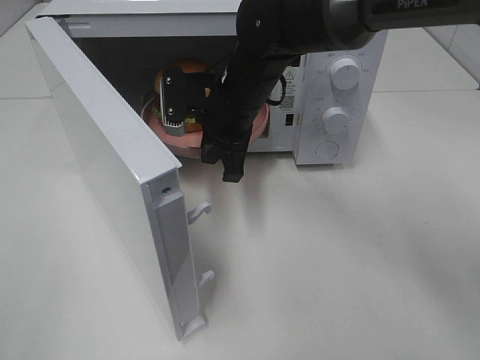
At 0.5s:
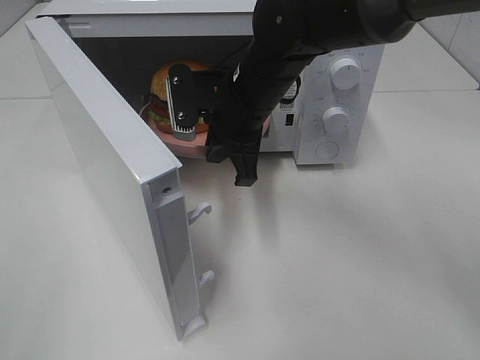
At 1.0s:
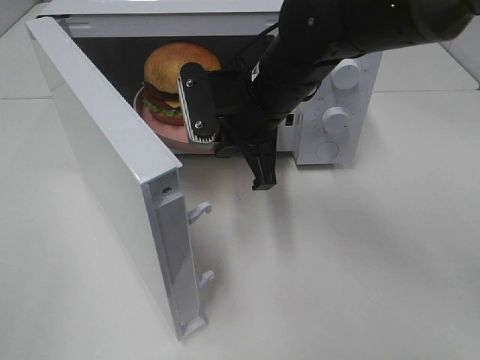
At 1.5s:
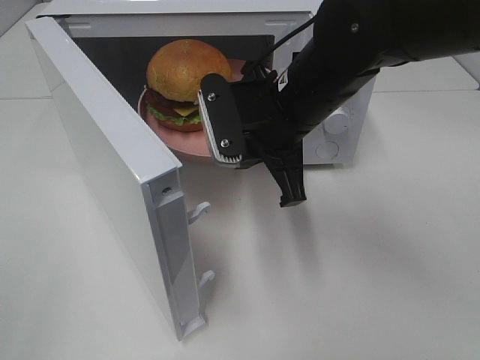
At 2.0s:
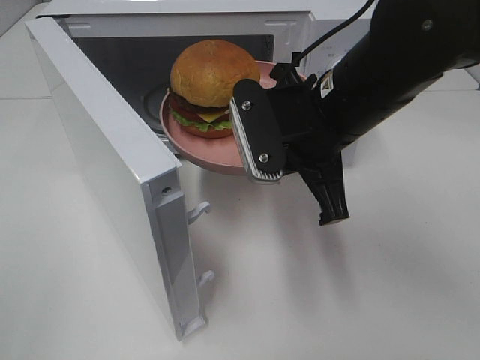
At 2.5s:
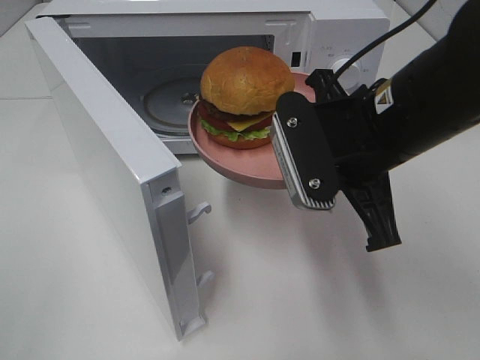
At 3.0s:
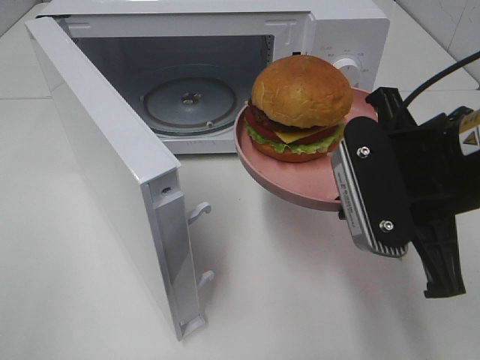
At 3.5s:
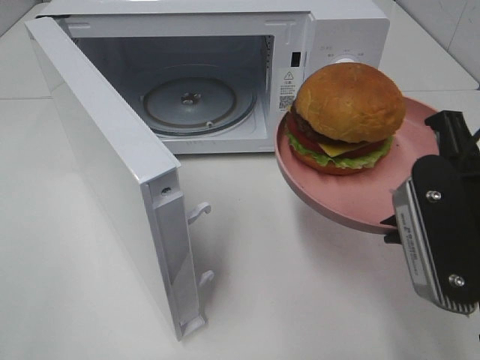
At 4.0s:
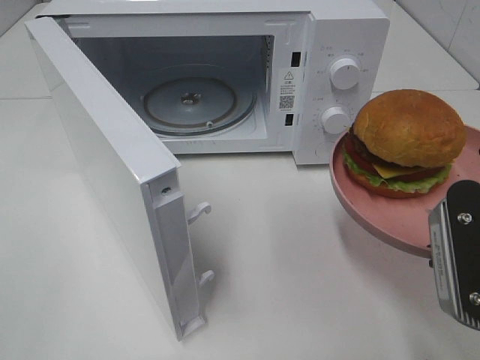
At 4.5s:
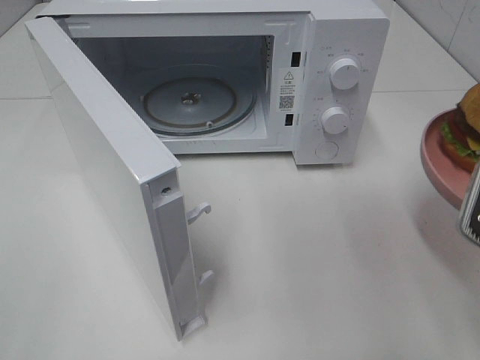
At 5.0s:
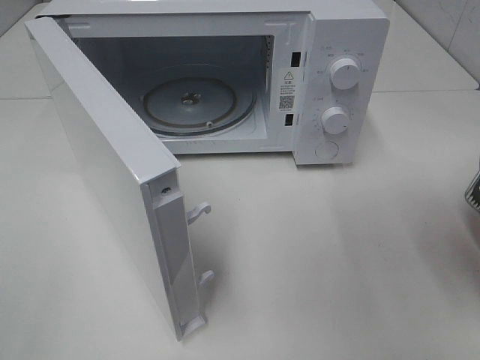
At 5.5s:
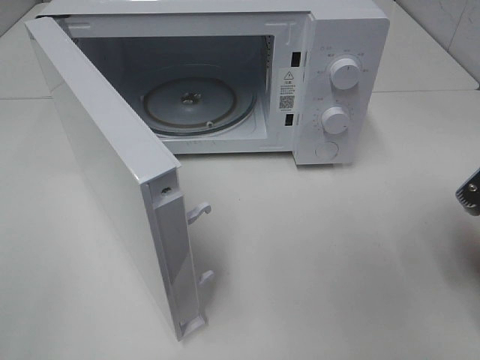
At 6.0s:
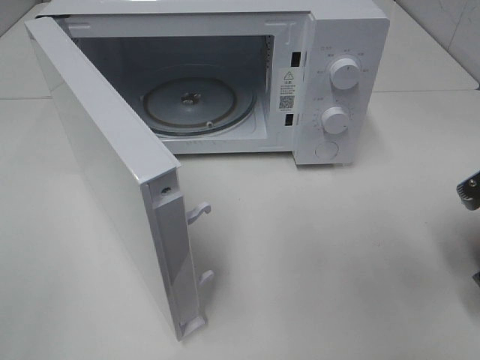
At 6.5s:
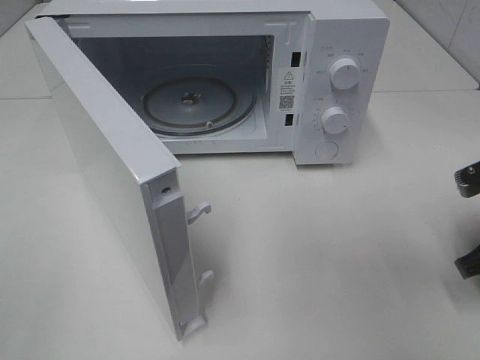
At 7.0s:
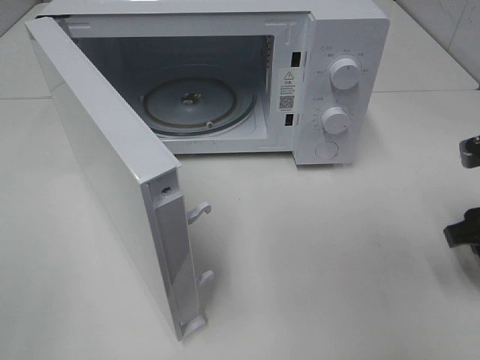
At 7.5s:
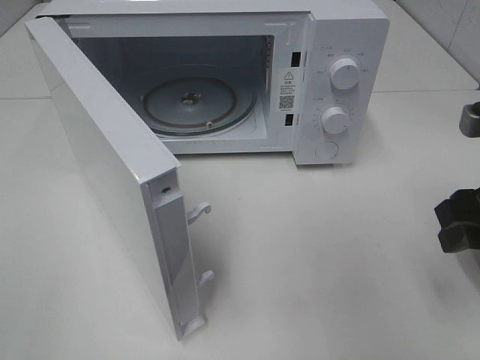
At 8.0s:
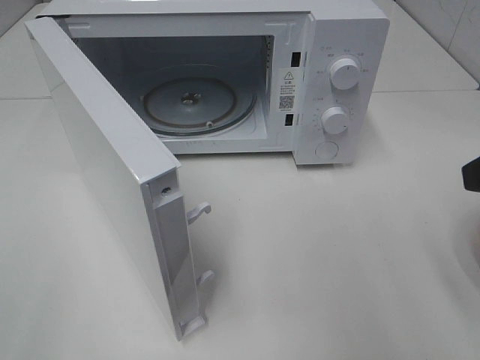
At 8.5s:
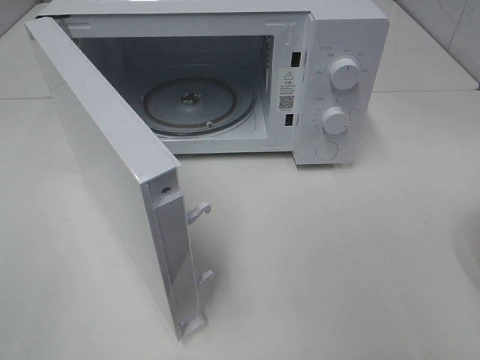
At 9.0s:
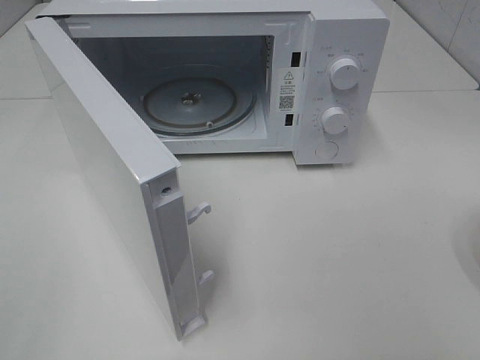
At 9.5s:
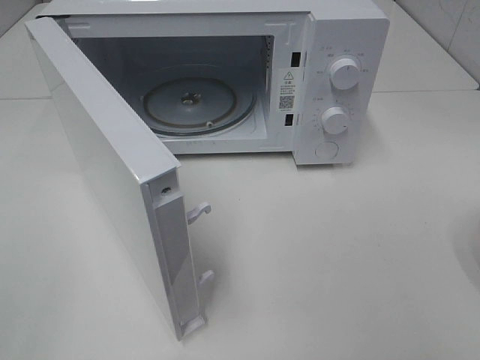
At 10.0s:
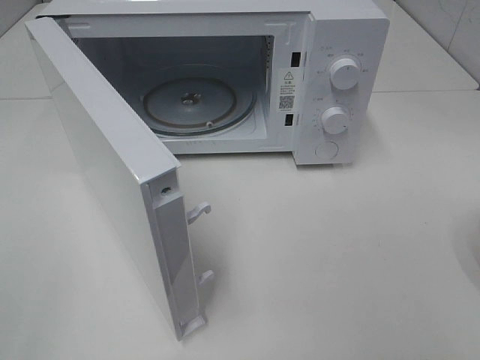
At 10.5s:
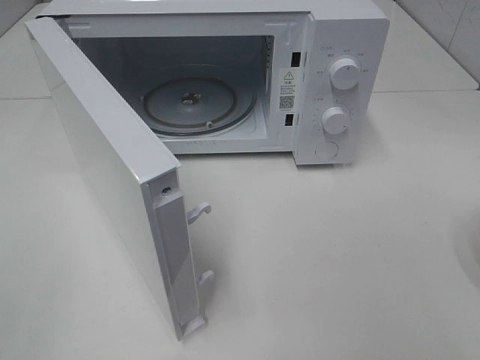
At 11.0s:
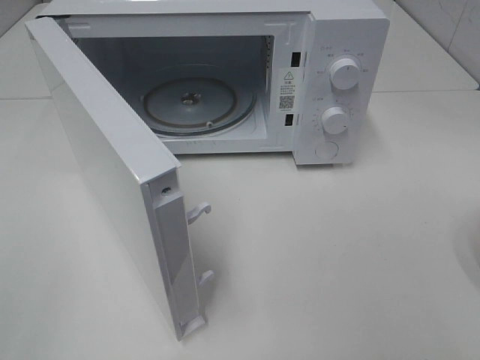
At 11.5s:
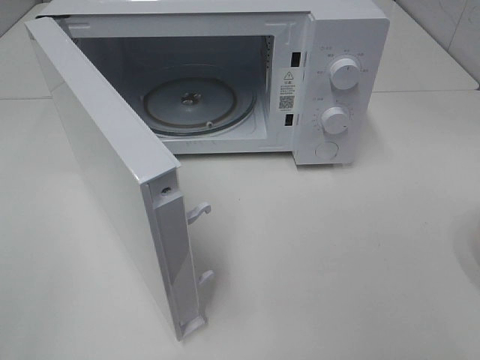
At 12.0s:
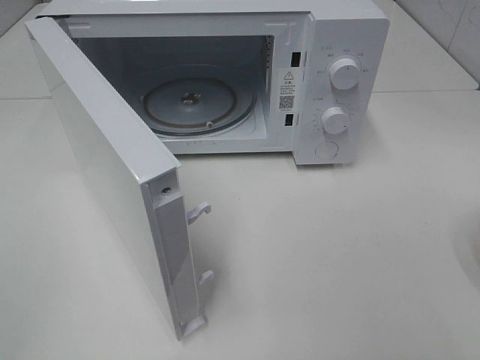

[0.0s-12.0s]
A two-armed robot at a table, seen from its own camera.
Task of the whole recording: Heat the burger.
Step, 0.0s to 6.0s: Right hand: place the plate on the table.
0.0s to 2.0s: The right gripper shifts some 15 cm backward, to the right and upward.
2.0s to 4.0s: The right gripper travels backward and to the right by roughly 20 cm.
4.0s to 6.0s: The right gripper is displaced to the right, downward and forward by roughly 15 cm.
6.0s to 8.0s: The right gripper is displaced upward by some 15 cm, and opens up.

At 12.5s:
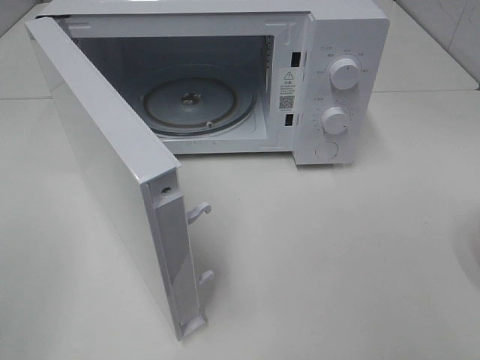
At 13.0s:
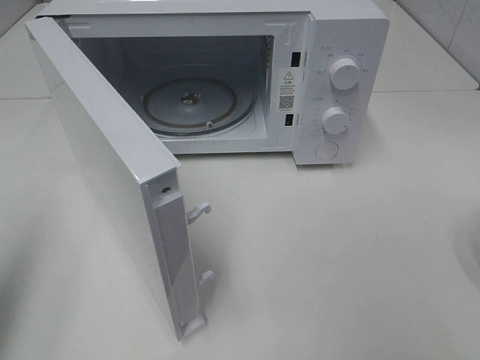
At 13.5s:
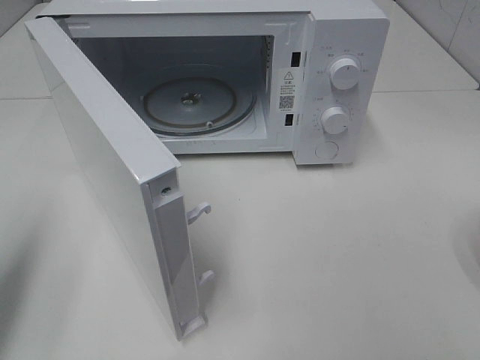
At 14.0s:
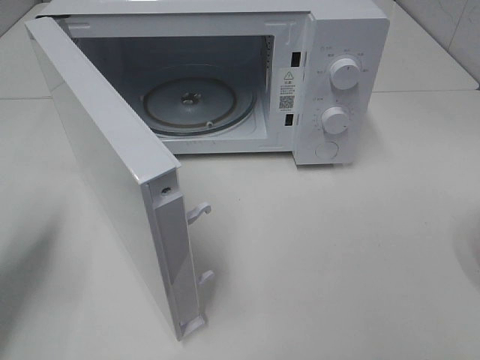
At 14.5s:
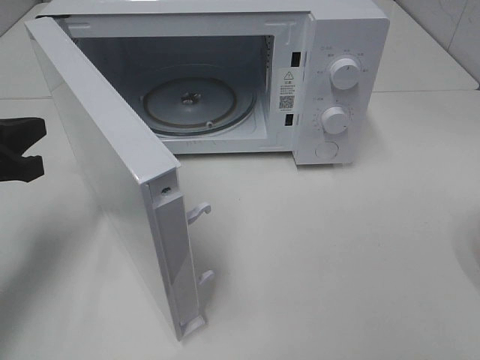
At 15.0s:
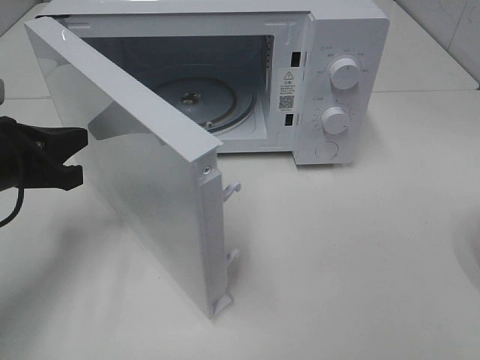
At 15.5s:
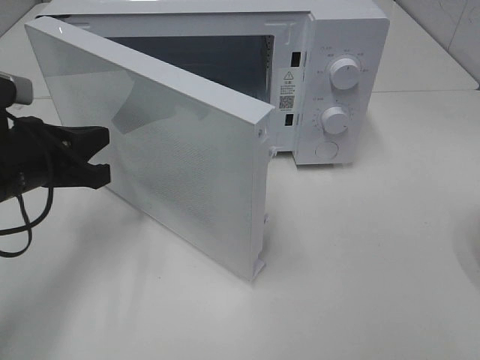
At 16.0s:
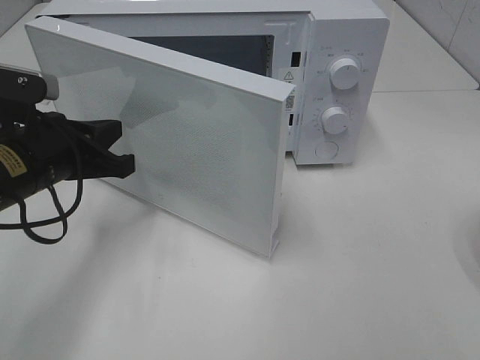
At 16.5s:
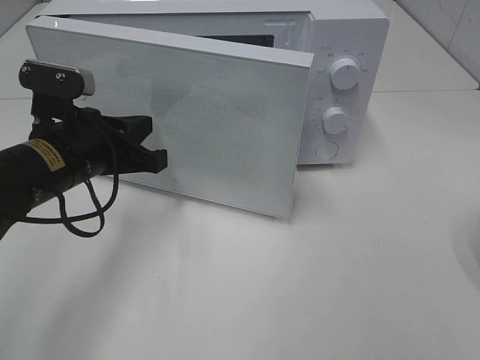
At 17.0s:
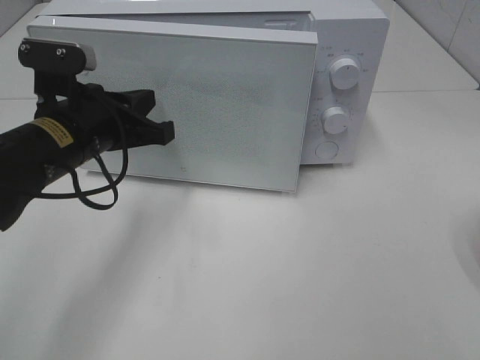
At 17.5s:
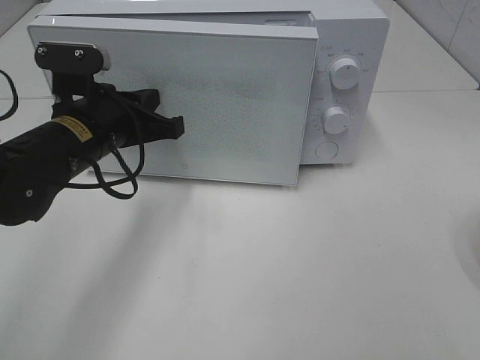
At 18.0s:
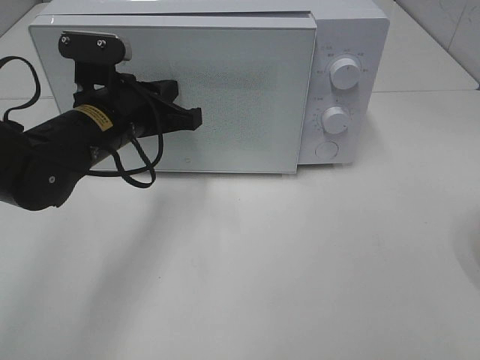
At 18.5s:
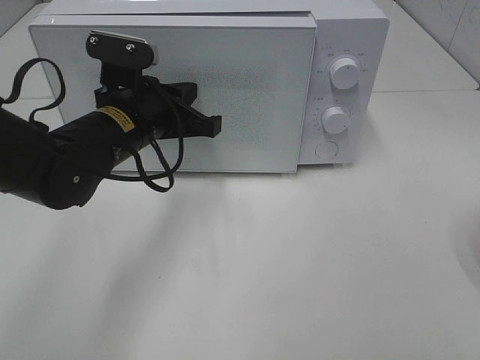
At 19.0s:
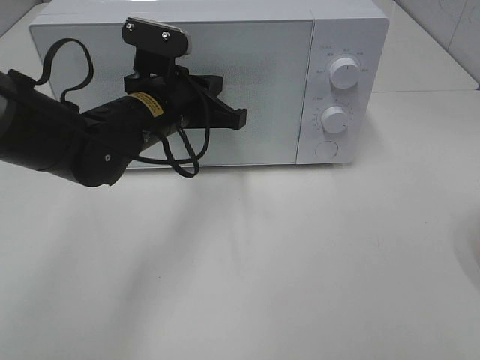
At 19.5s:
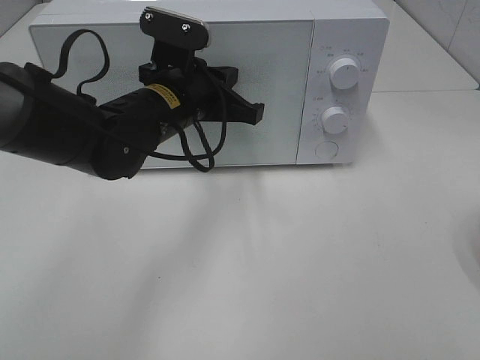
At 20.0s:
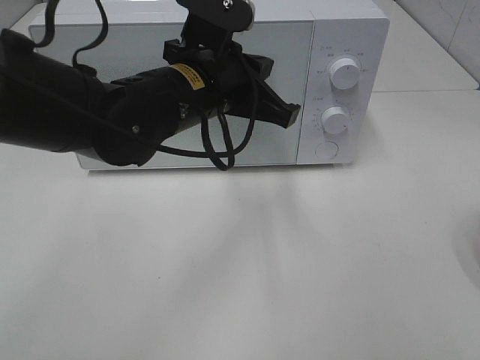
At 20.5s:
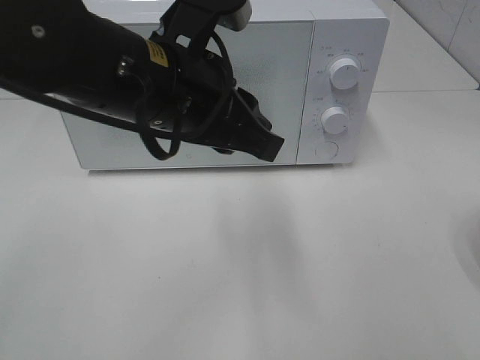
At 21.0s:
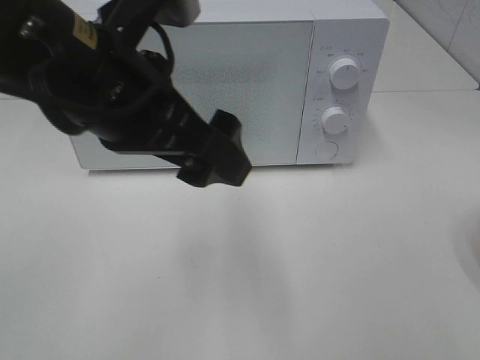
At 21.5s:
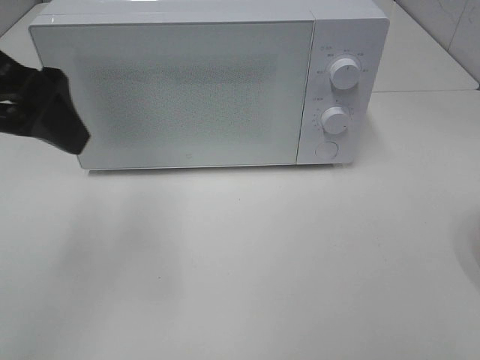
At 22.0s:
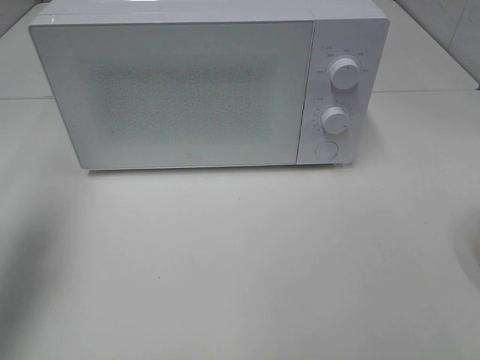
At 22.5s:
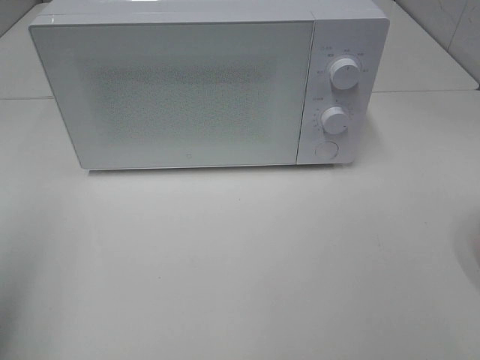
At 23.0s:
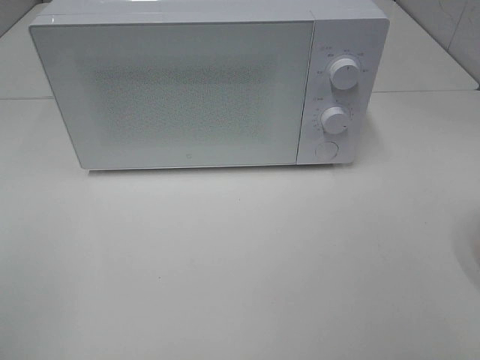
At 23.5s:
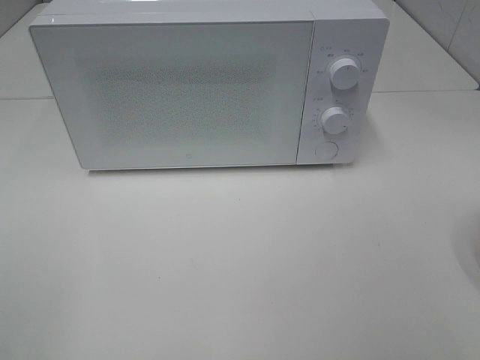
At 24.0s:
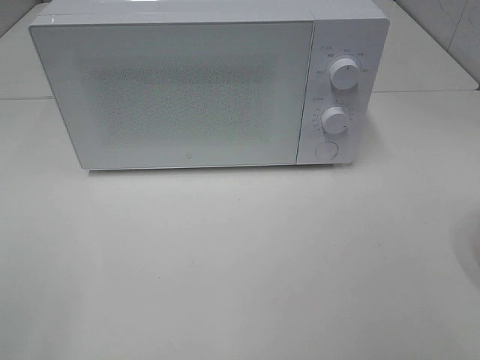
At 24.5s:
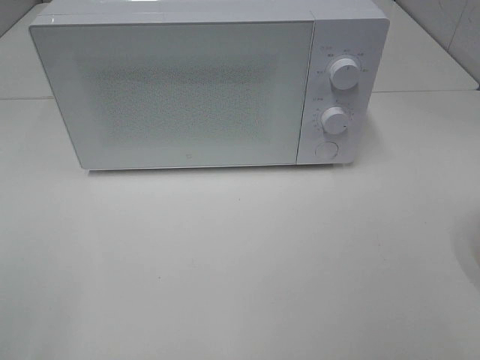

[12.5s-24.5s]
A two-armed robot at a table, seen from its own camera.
Task of the whole recording: Heat the burger.
Step, 12.5s to 19.0s: Left hand: close the microwave door.
12.5s to 14.5s: The left gripper goes roughly 25 cm forward and downward, and closes up.
14.5s to 16.5s: The left gripper travels to the right by about 10 cm.
16.5s to 18.5s: The left gripper goes some 5 cm to the right.
18.5s to 20.5s: The left gripper heads upward, backward and to the right, covering about 15 cm.
20.5s to 22.5s: The left gripper goes roughly 30 cm to the left and backward, and opens its fingers.
22.5s to 24.5s: The left gripper heads backward, covering roughly 15 cm.

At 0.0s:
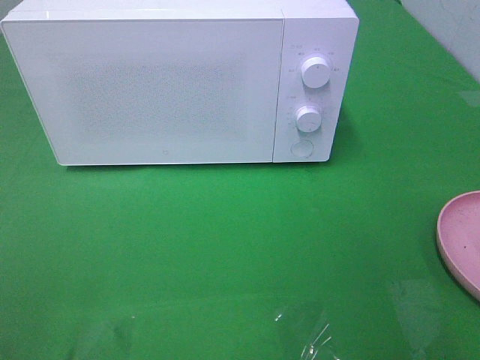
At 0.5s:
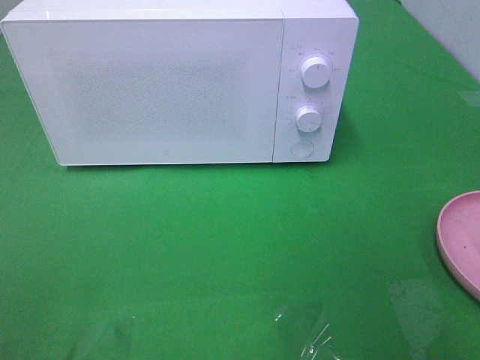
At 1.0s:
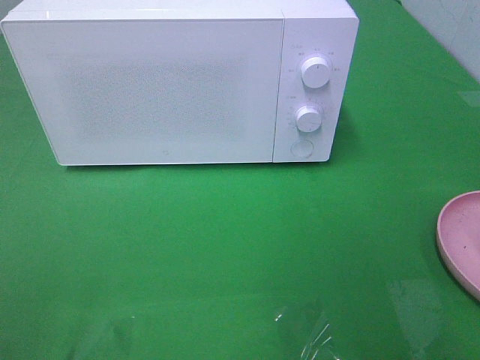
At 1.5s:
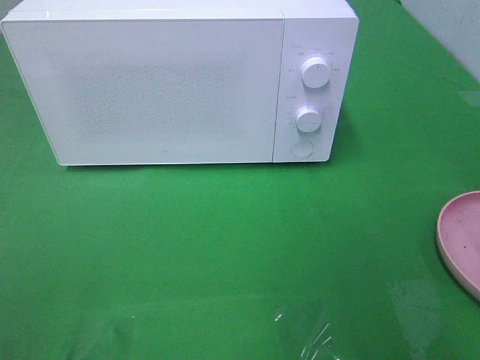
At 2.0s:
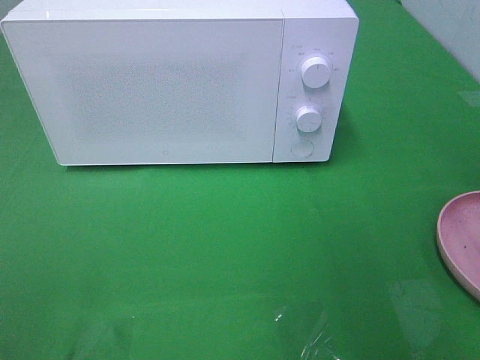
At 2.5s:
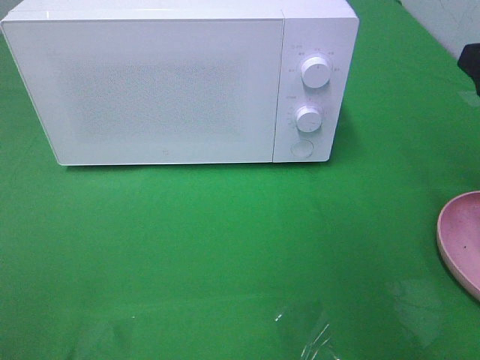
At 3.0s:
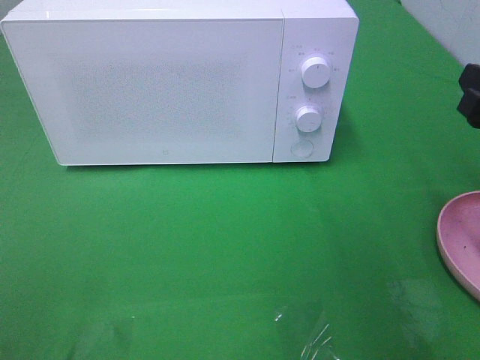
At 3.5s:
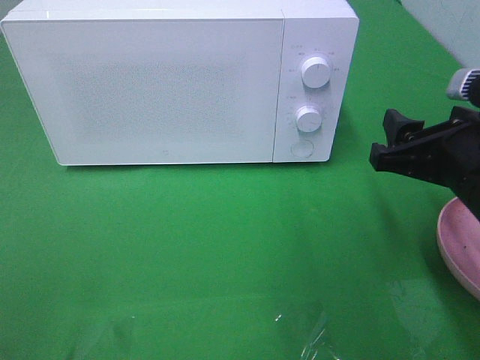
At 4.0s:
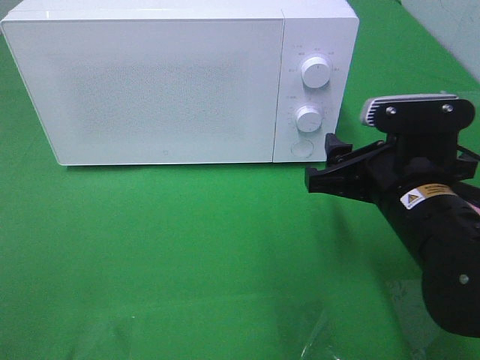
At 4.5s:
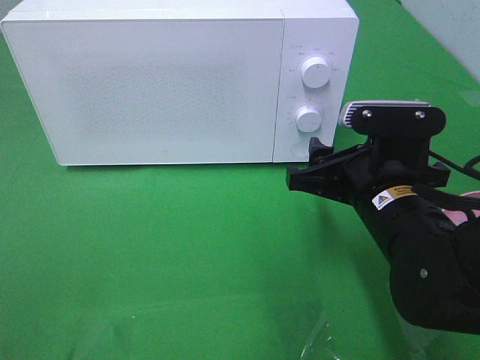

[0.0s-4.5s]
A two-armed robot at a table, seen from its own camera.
Task of the whole recording: Heat the burger.
2.0s to 4.5s: The right gripper heads to the left, downward and forward, covering roughly 20 cm.
